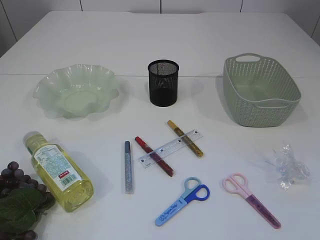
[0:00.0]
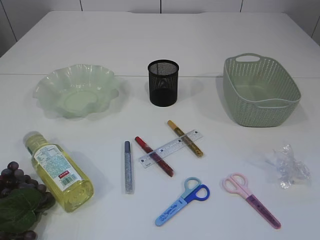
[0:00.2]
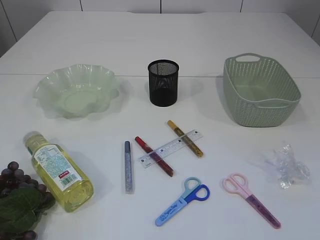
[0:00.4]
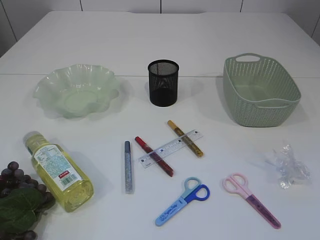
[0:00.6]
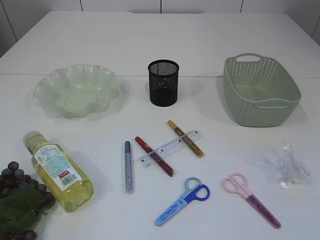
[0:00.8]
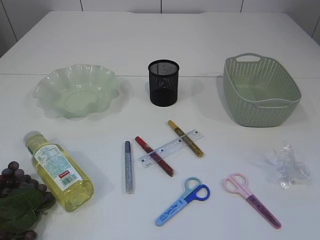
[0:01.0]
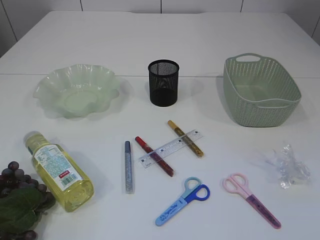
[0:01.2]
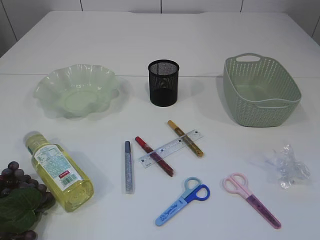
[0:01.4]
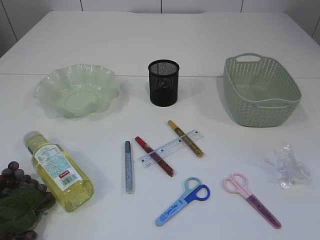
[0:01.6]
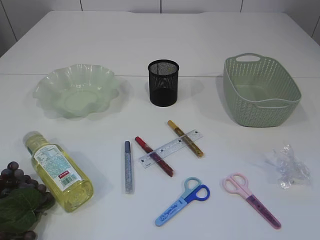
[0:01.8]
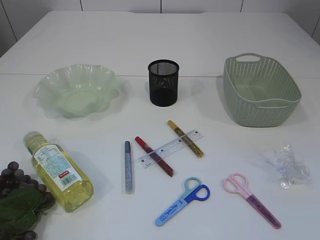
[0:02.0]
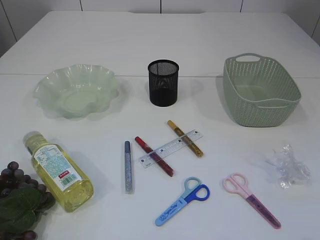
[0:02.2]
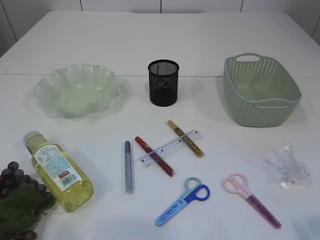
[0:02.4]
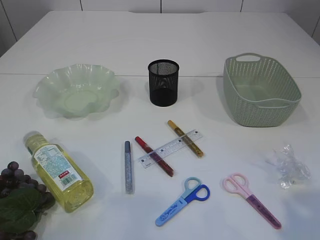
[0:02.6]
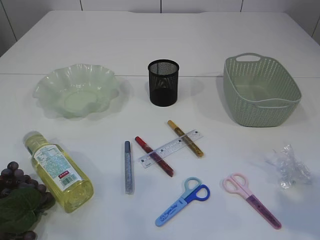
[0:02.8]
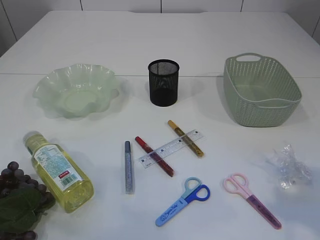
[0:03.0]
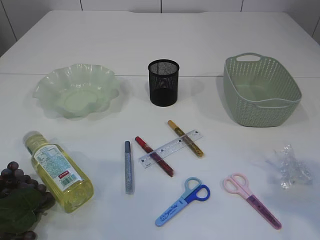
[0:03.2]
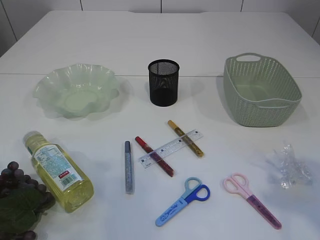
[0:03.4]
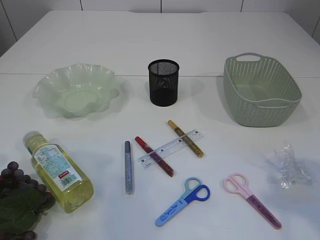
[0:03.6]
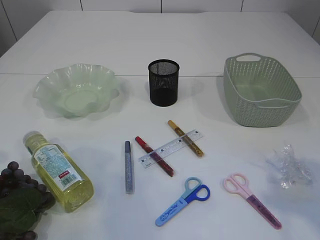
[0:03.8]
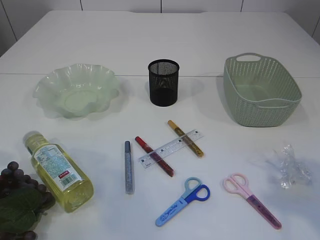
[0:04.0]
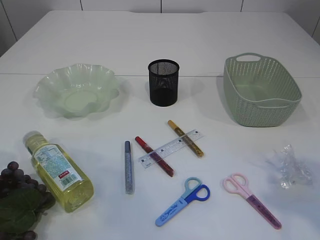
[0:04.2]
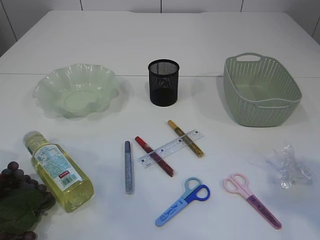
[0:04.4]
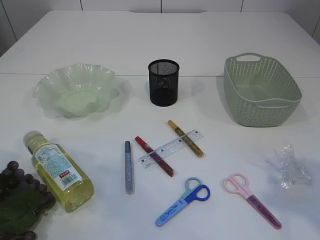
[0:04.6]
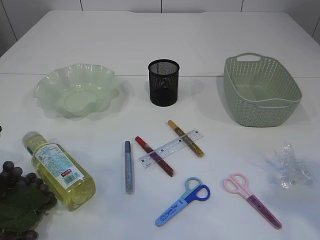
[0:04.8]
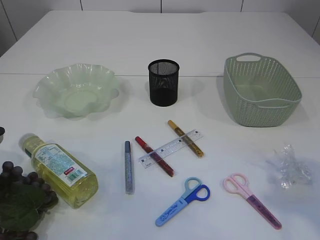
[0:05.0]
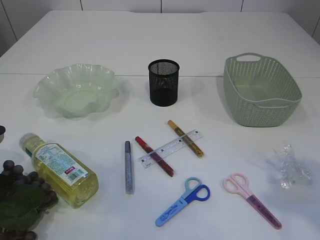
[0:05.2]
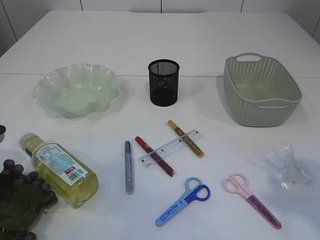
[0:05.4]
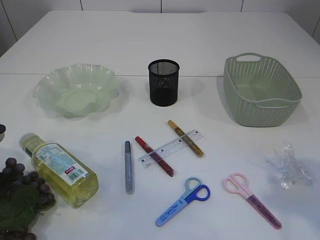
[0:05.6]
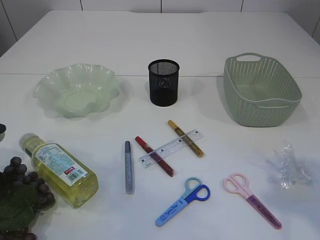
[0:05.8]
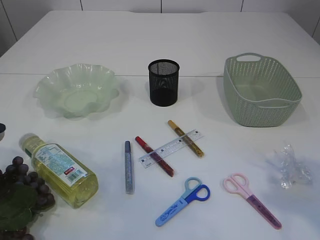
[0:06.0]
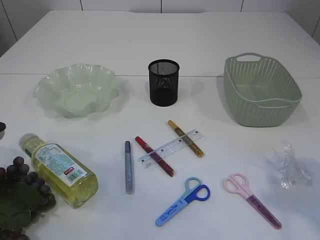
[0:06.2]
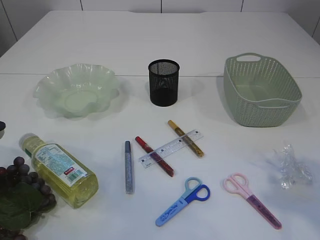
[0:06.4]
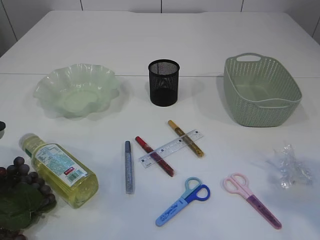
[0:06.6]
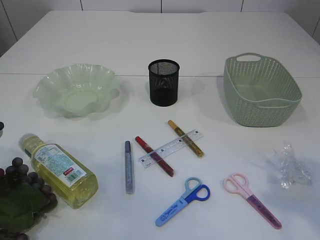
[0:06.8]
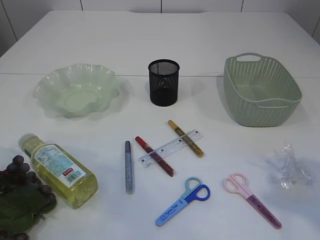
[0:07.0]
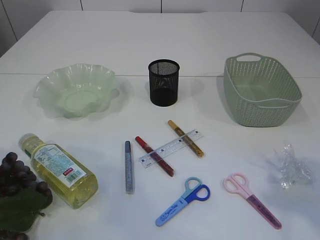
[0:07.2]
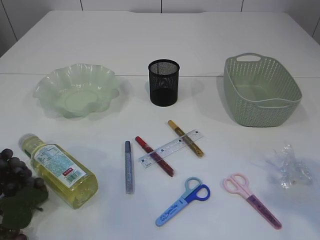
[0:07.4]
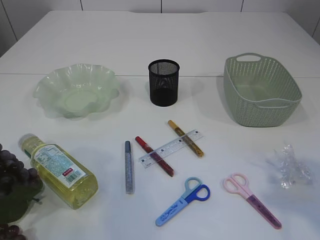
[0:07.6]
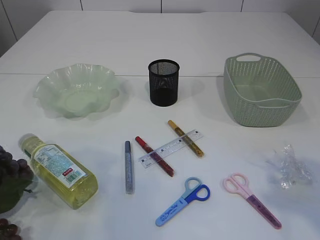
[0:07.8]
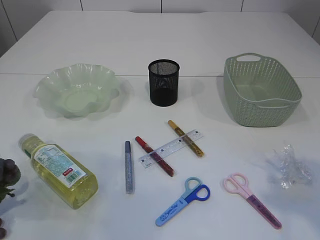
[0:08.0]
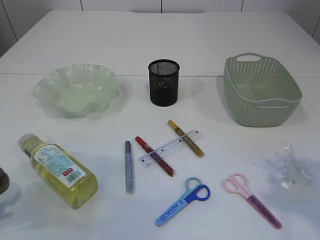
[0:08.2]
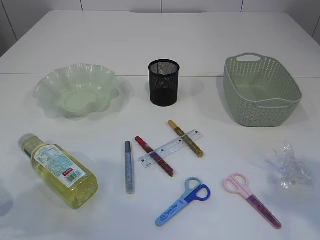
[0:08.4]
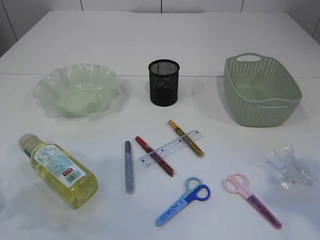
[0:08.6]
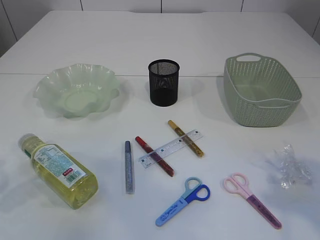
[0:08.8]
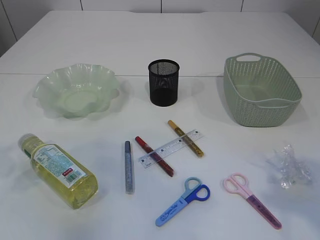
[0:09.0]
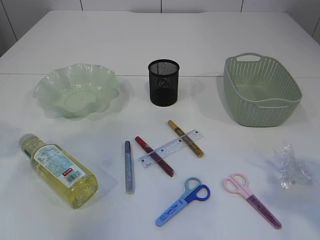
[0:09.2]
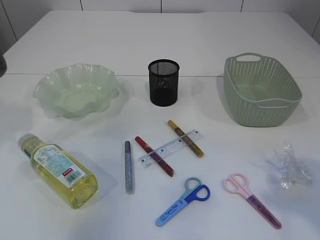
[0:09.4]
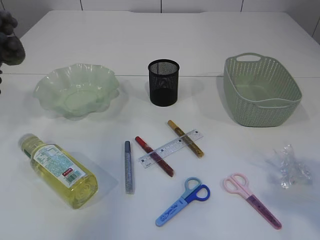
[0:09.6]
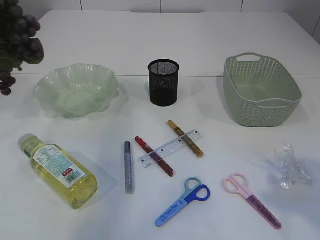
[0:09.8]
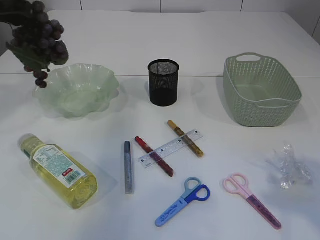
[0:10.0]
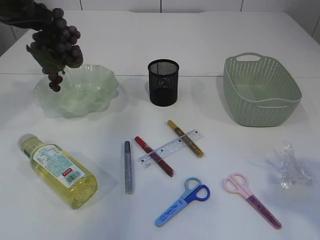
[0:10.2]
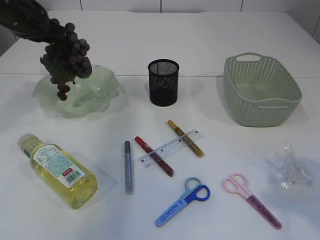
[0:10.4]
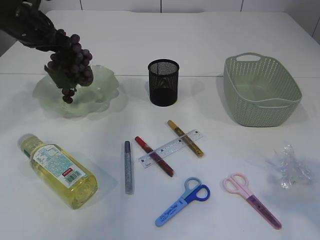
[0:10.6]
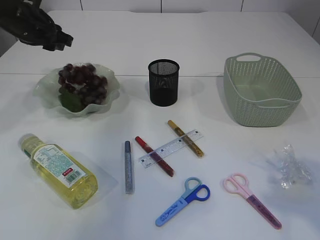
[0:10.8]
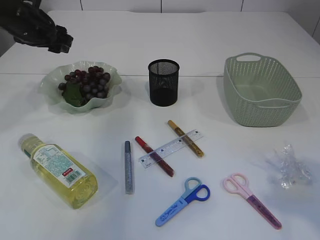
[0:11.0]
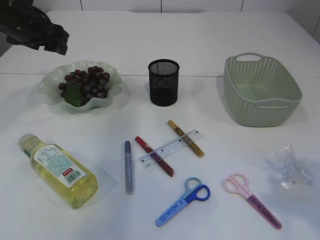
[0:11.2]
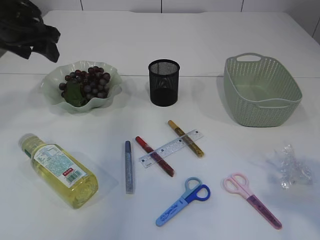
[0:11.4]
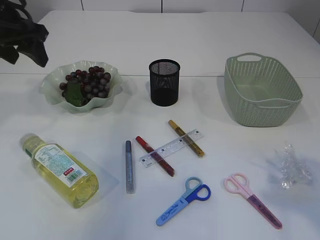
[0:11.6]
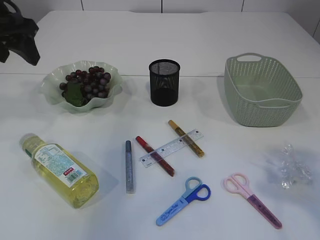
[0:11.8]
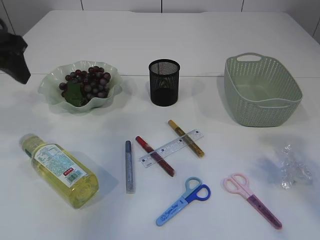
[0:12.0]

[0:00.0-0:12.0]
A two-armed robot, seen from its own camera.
Step, 0:00.0 to 0:09.6: Pick up the grapes.
Step, 0:09.8 to 0:11.4: Place the grapes in the plate.
0:01.6 to 0:03.0: Both grippers travel together forward, some 15 cm.
0:04.4 to 0:06.0: The left gripper closes up.
0:06.0 to 0:07.6: The left gripper goes about 5 cm upward, and closes up.
0:07.6 to 0:09.0: The left gripper travels upward by roughly 15 cm.
0:09.0 to 0:10.4: The left gripper moves forward, some 25 cm.
0:10.4 to 0:12.0: The left gripper shifts about 10 cm backward, and opens its fingers.

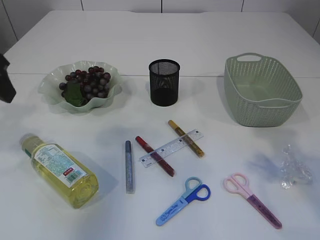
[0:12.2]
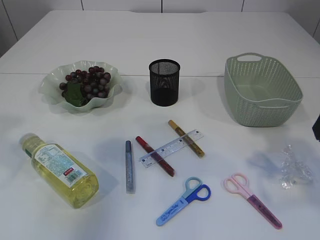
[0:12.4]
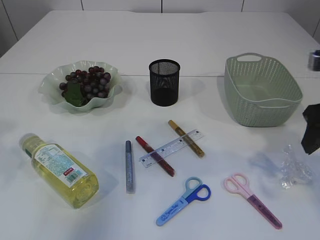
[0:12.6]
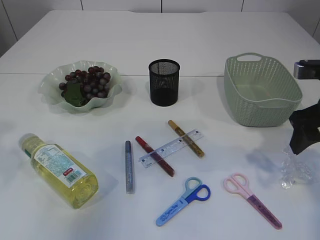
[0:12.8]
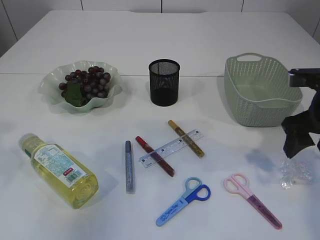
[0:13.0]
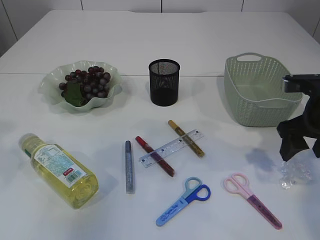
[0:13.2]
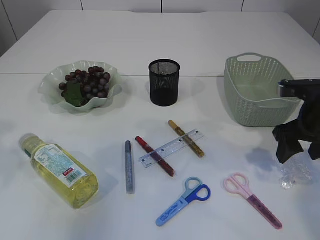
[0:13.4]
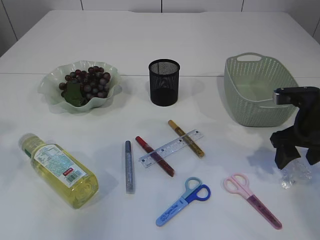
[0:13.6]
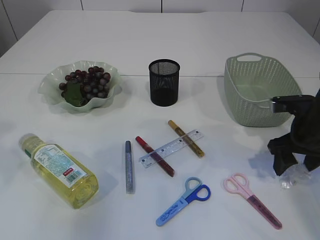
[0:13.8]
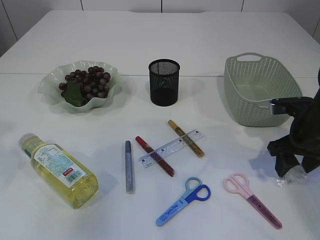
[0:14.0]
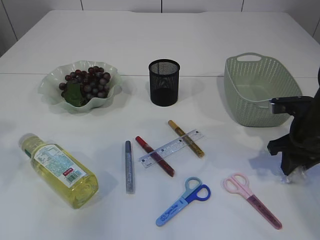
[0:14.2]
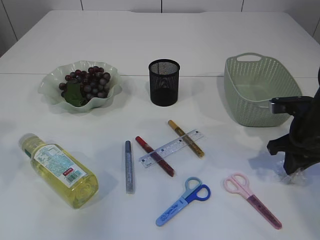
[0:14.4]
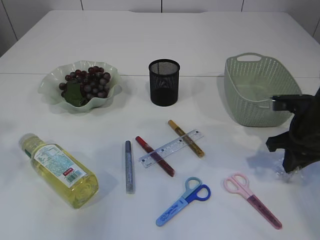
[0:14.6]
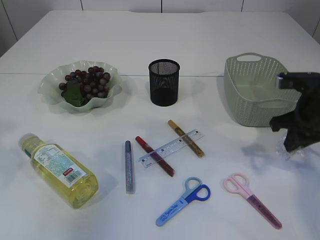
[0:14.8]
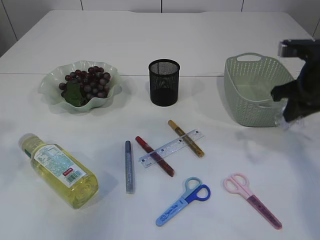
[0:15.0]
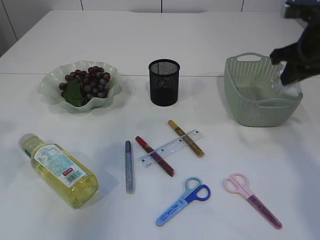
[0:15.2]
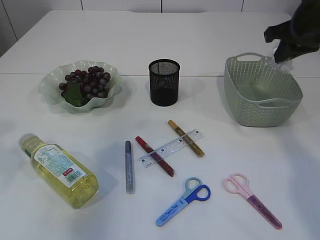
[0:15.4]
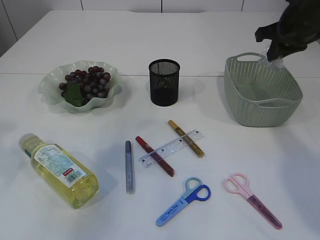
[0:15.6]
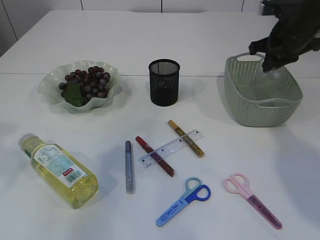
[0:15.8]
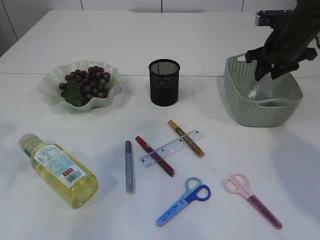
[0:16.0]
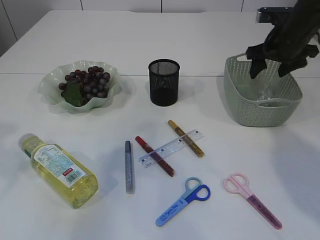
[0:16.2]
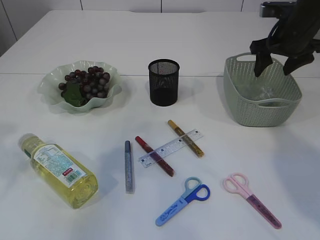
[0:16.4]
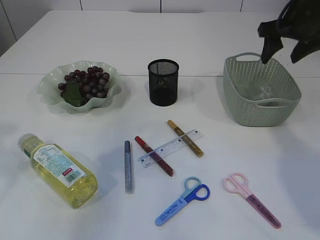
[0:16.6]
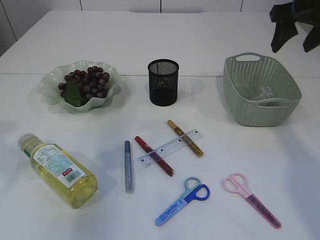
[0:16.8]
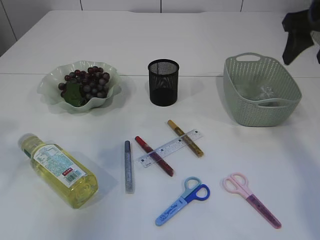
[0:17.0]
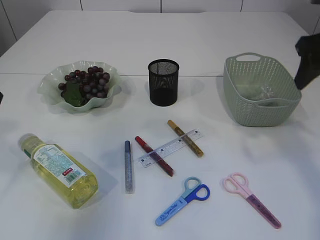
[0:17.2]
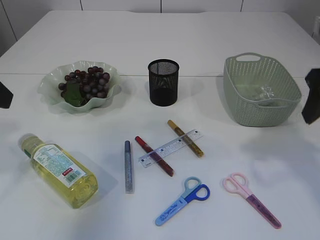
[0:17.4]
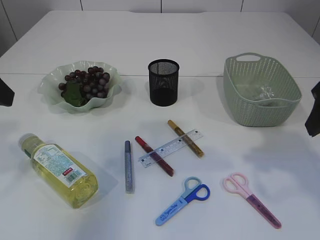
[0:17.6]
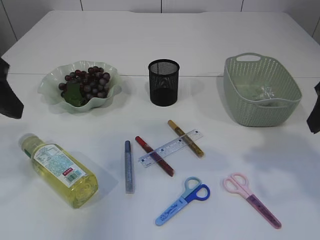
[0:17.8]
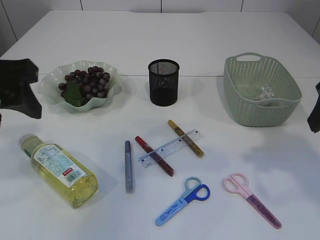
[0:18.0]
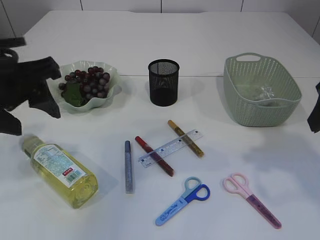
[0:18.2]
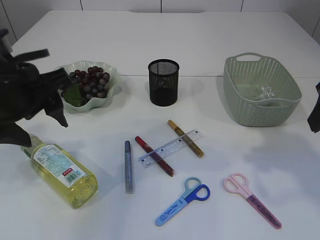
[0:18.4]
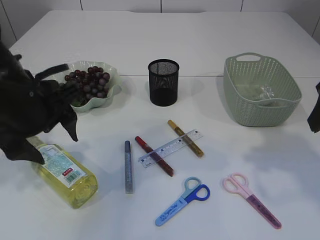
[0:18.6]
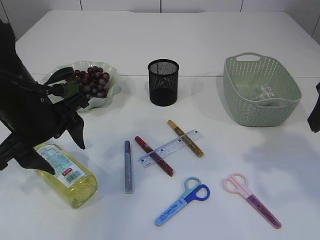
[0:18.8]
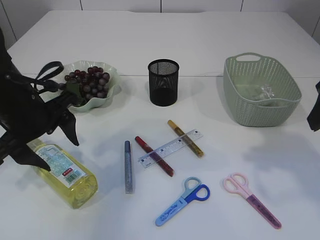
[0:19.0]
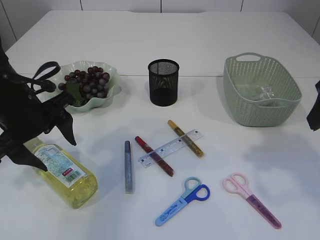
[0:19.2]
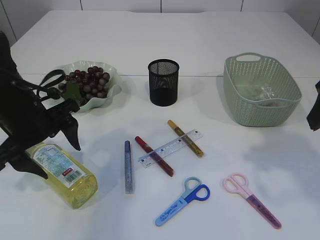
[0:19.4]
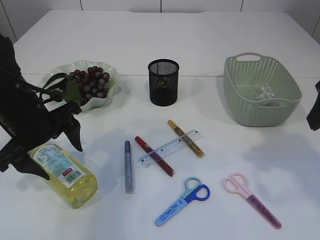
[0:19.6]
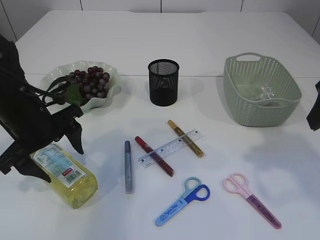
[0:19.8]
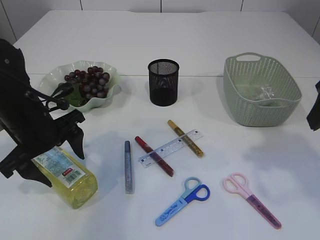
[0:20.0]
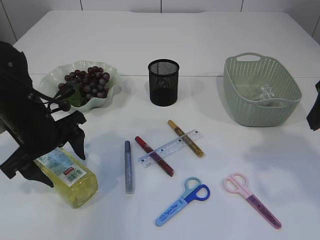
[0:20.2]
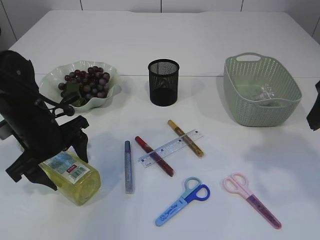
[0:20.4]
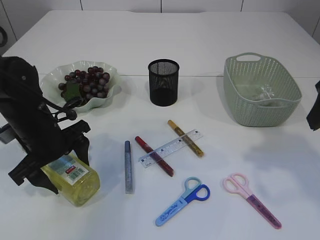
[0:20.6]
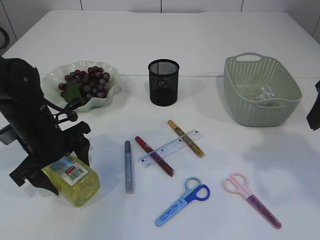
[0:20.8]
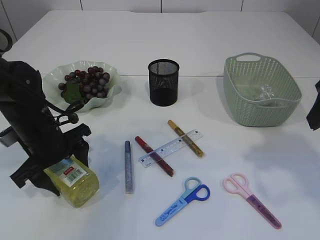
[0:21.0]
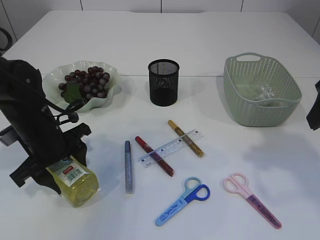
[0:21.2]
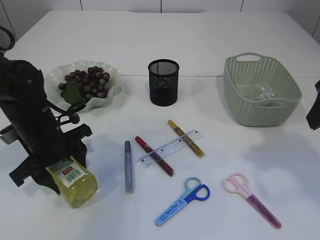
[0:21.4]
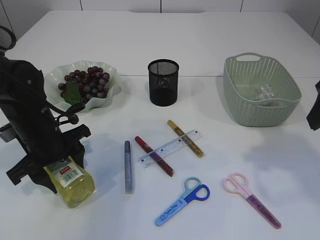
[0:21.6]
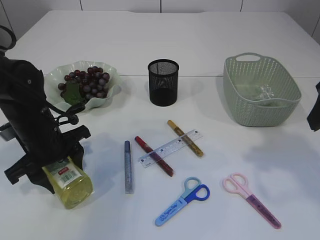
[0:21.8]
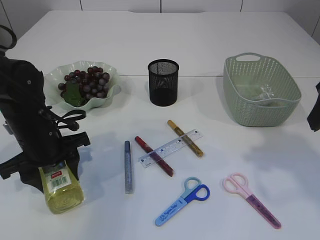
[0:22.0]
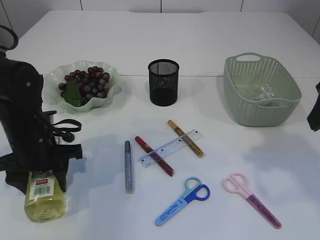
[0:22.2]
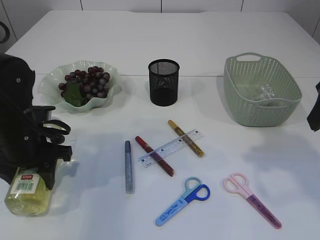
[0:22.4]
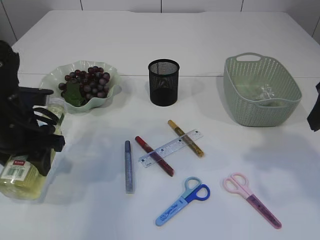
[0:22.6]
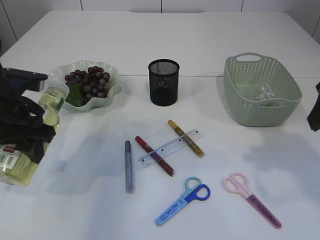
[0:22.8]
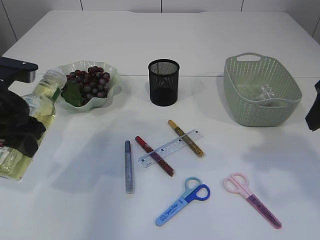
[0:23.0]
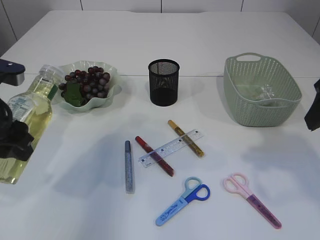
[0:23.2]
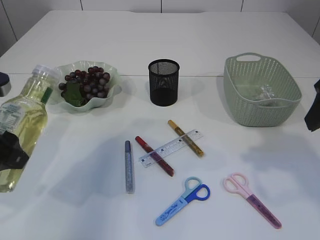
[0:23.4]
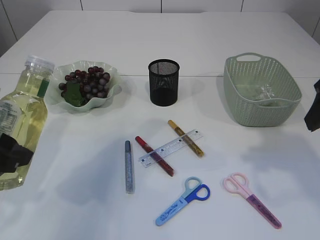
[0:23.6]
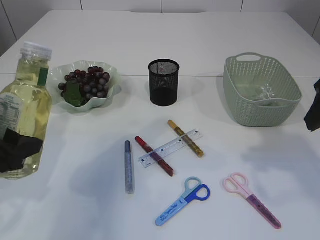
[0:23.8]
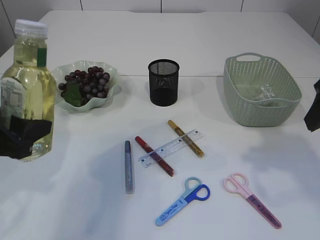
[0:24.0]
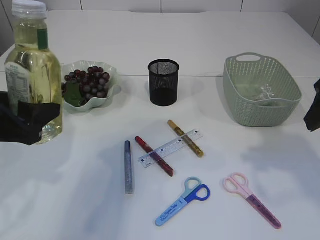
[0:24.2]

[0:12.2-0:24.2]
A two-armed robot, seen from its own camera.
Step, 0:12.2 to 0:15.0: Pick up the plastic.
Step, 0:15.2 to 0:16.4: Place the plastic in the basket.
Step, 0:16.6 to 0:22.8: Pick up the bottle with the left arm.
0:12.2 to 0:13.8: The left gripper moves backward, approximately 5 cm. The right gripper moves downward and forward, roughly 25 cm.
0:13.8 to 0:15.2: The right gripper goes about 15 cm upward, and closes.
0:15.2 to 0:16.6: The right gripper is displaced forward by approximately 5 cm, and opens up.
0:16.6 to 0:18.2: The left gripper travels to the right by approximately 10 cm, while the right gripper travels backward by roughly 20 cm.
0:18.2 to 0:19.8: The left gripper shifts some 15 cm downward and forward.
0:19.8 to 0:21.2: The left gripper moves downward, roughly 5 cm.
0:21.2 to 0:22.6: The left gripper shifts by roughly 5 cm.
0:22.6 to 0:24.2: The left gripper moves backward, about 10 cm.
